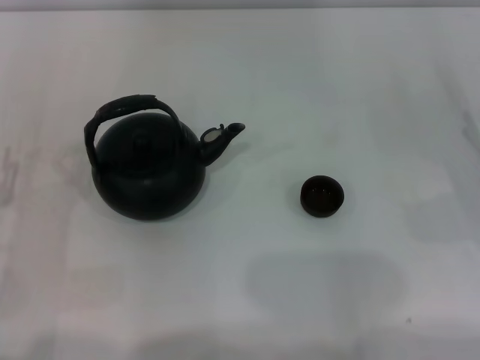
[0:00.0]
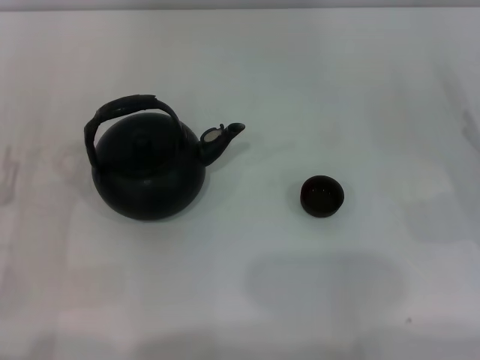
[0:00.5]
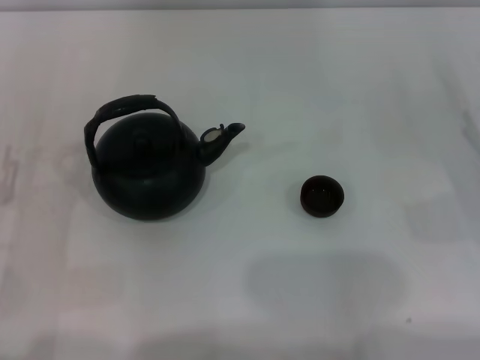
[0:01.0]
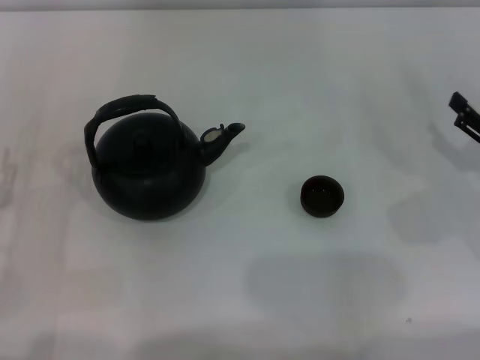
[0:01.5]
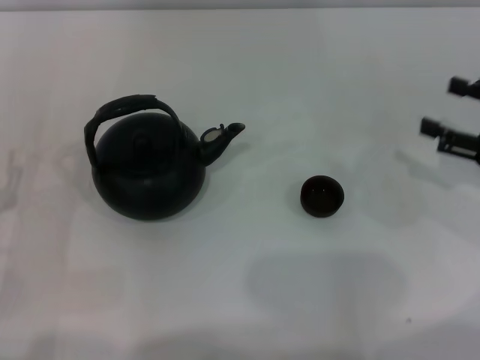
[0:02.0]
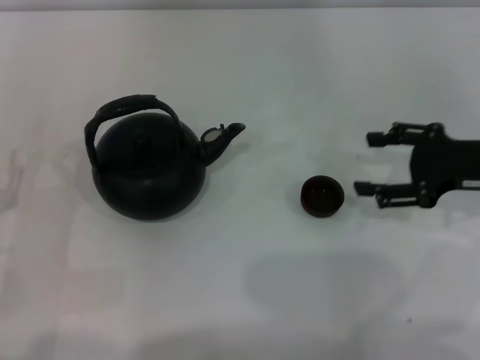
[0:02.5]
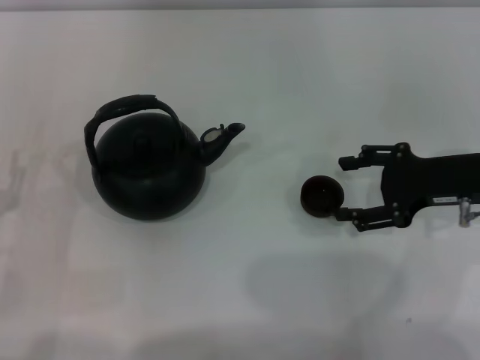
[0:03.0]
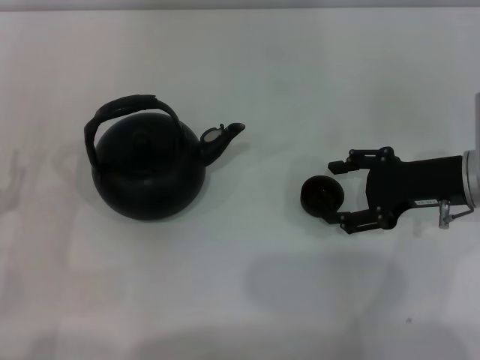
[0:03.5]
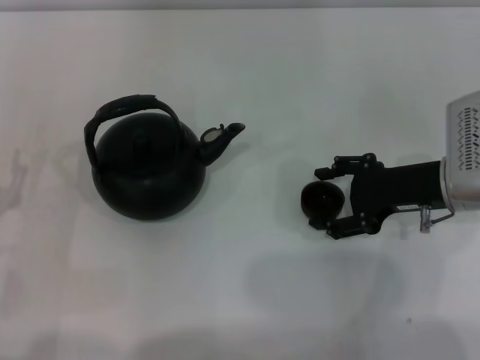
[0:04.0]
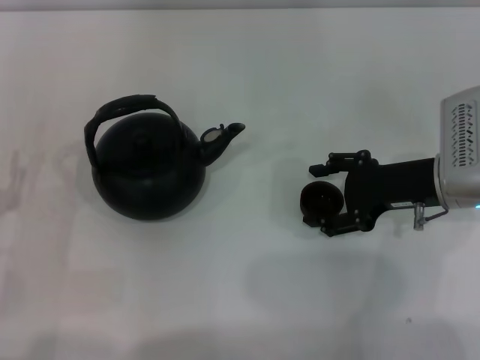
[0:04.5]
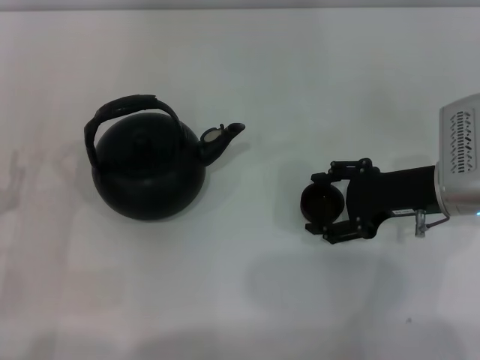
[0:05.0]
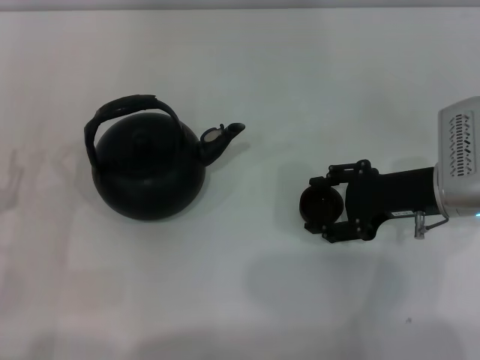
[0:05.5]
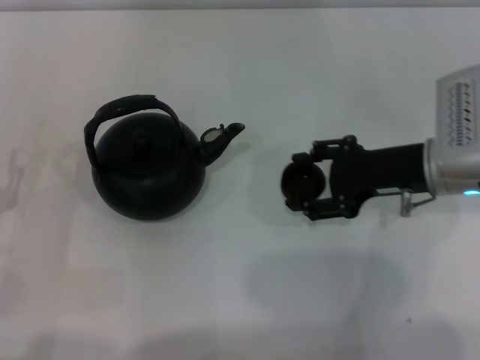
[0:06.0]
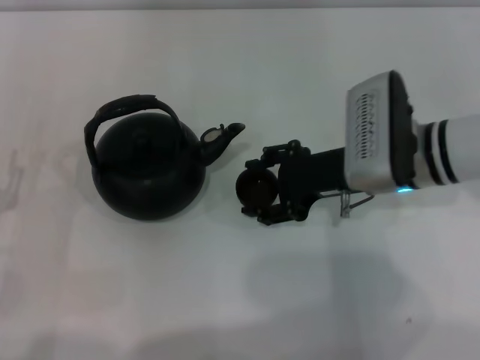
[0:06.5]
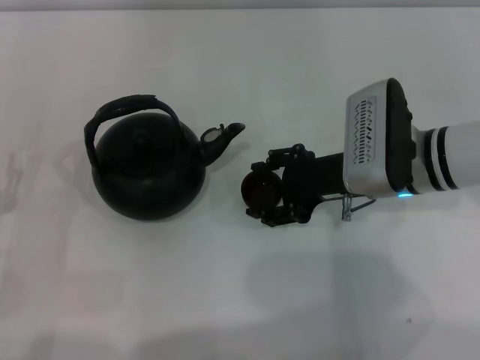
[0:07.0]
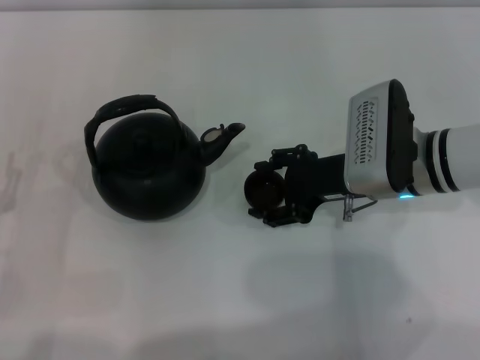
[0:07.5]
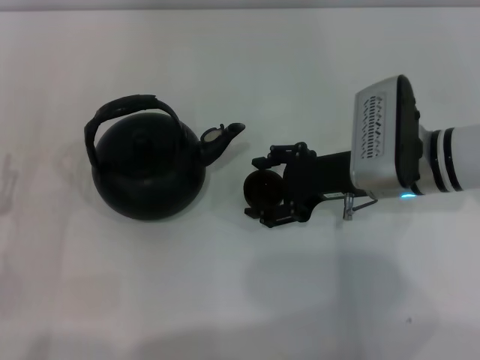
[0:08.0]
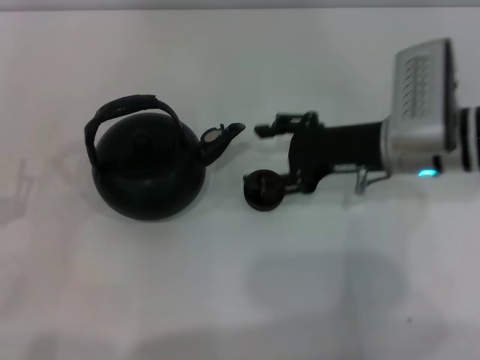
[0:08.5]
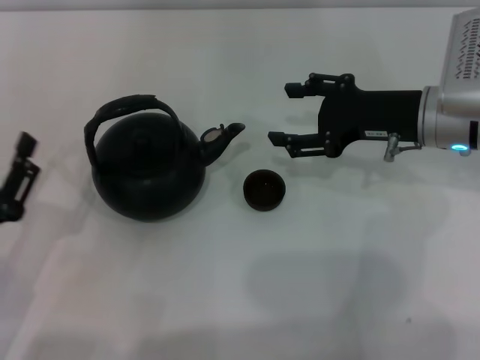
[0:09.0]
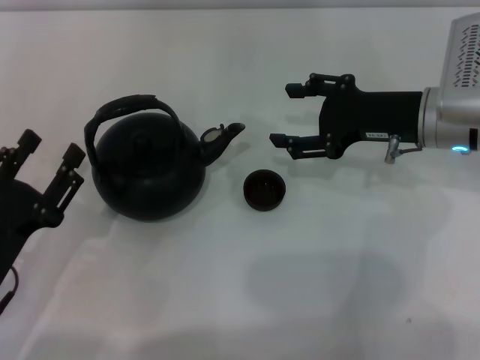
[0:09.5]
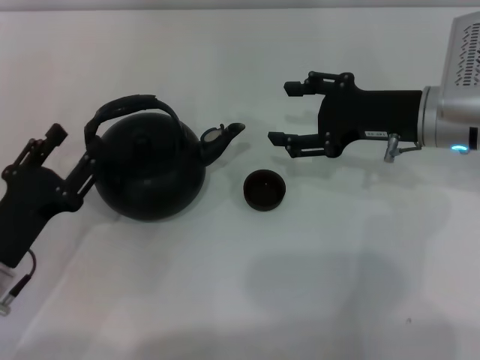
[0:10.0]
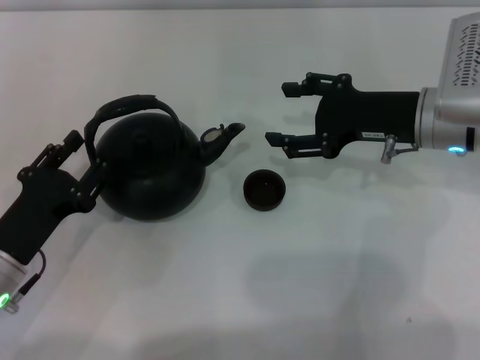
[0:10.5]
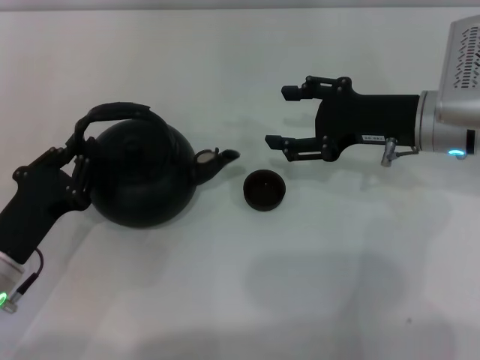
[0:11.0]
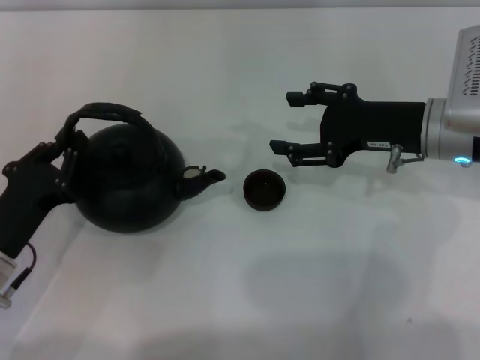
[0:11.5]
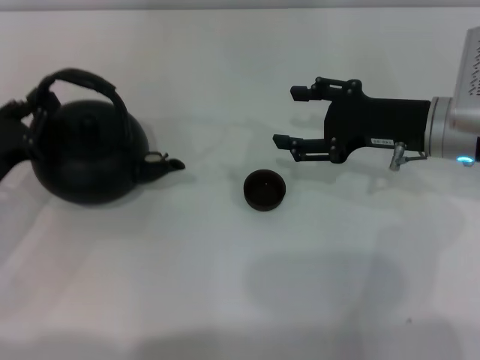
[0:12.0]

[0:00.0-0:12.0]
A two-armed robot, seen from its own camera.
Task of the whole recording: Grasp the handle of the teapot with one hand and pour tea into the teacup.
Step, 0:00.0 to 0:05.5: Pick up the teacup with the right gripper.
Step, 0:06.0 to 0:08.5: Place the teacup in the center of view with the right gripper.
0:00.0 to 0:02.0: The right gripper goes approximately 5 cm upward.
0:02.0 to 0:04.0: The right gripper goes some 10 cm to the left.
0:04.0 to 0:06.0: The grippers move only a little.
0:06.0 to 0:08.0: The right gripper heads to the left, covering roughly 5 cm.
0:08.0 to 0:10.0: The left gripper heads to the right, covering some 5 cm. Meanwhile the right gripper changes place by some 5 cm.
0:10.0 to 0:12.0: The left gripper shifts some 5 cm forward, and closes its fingers.

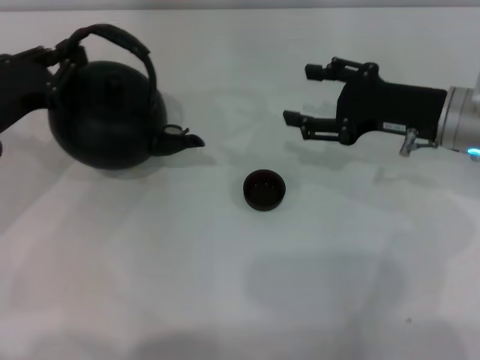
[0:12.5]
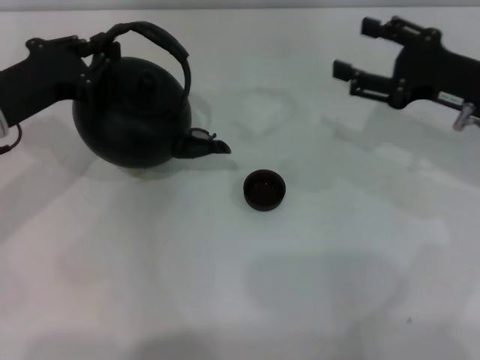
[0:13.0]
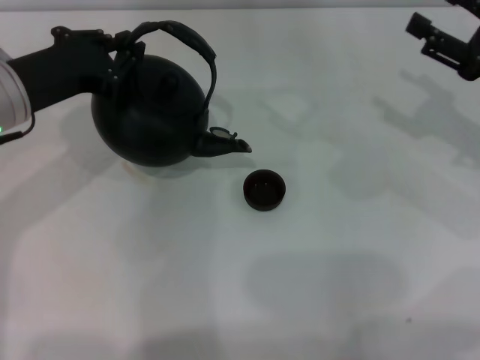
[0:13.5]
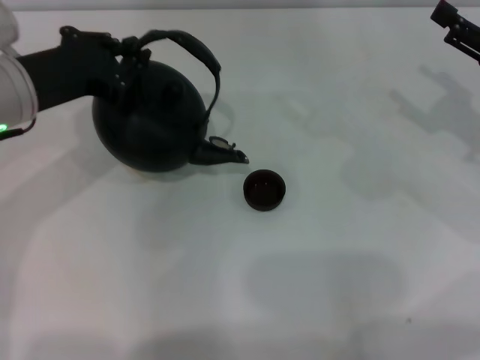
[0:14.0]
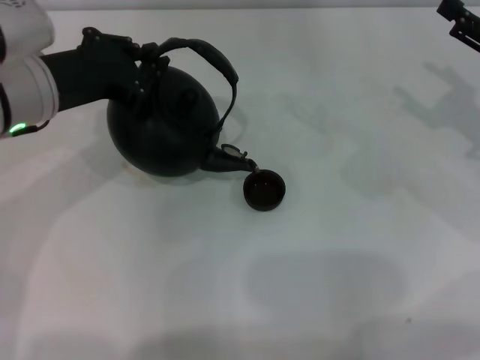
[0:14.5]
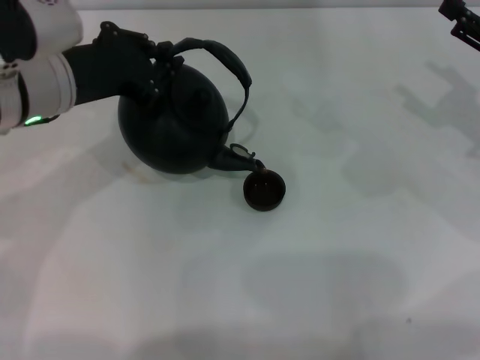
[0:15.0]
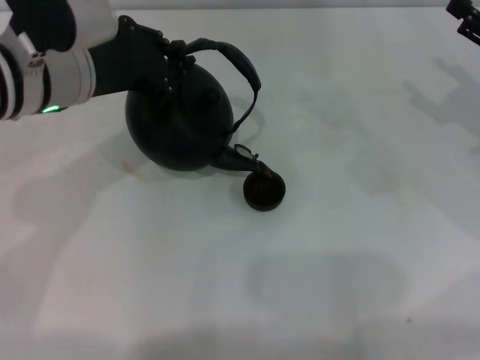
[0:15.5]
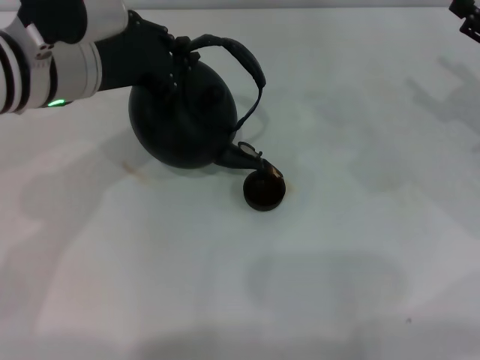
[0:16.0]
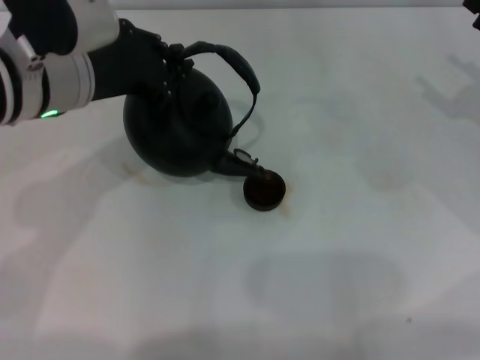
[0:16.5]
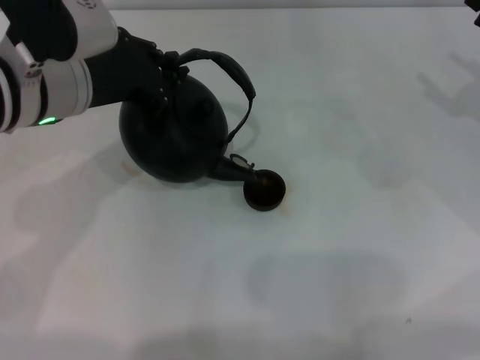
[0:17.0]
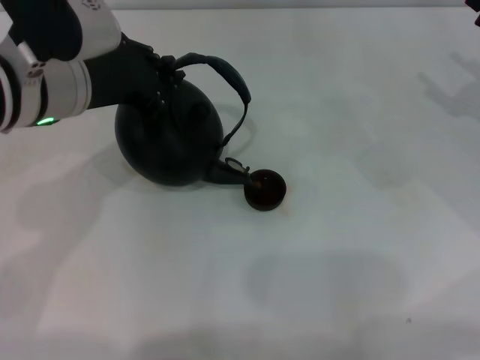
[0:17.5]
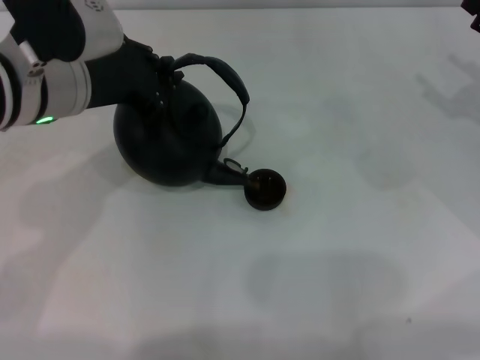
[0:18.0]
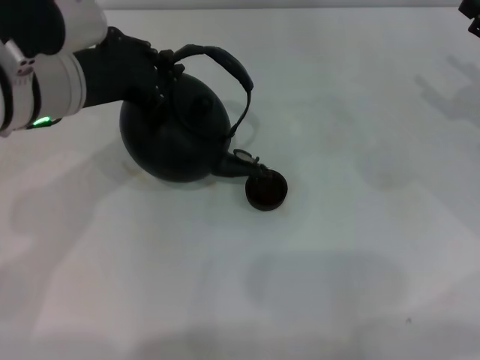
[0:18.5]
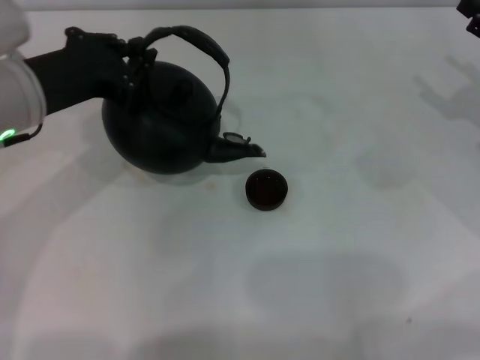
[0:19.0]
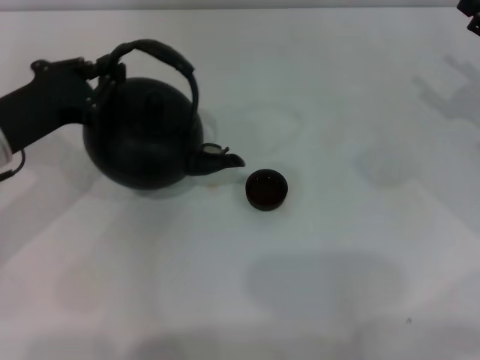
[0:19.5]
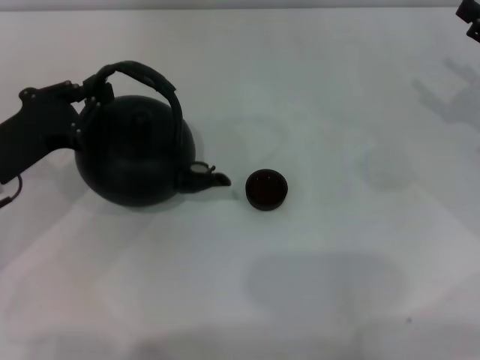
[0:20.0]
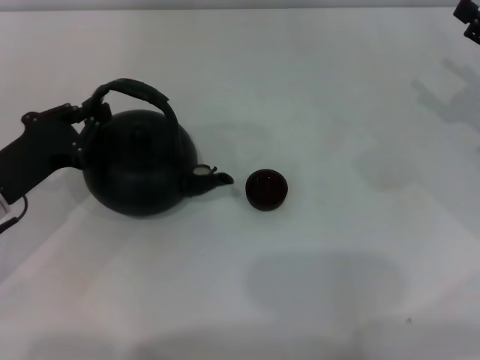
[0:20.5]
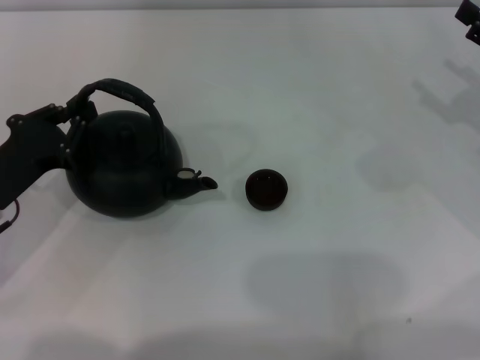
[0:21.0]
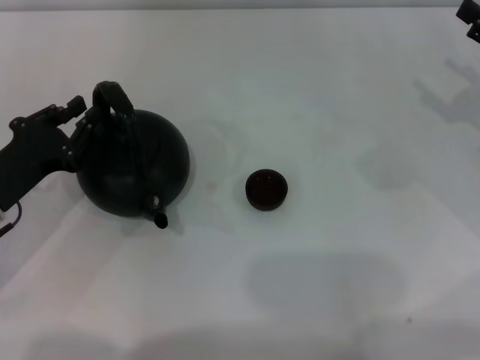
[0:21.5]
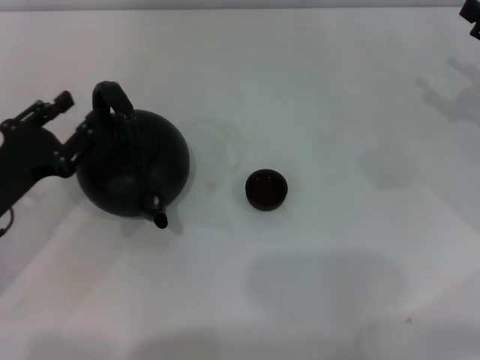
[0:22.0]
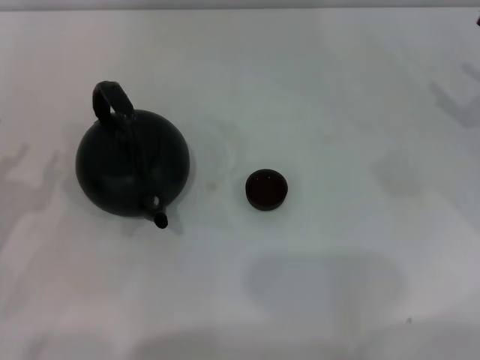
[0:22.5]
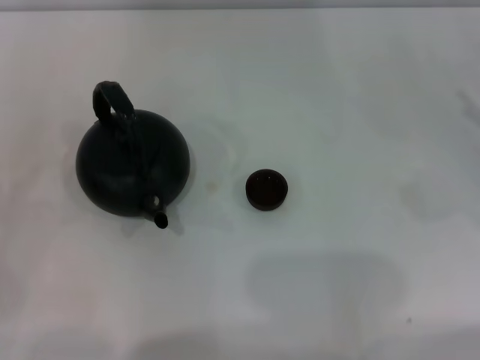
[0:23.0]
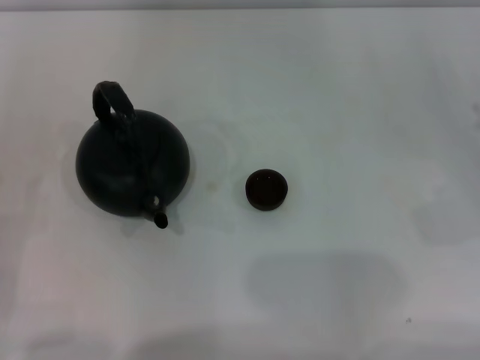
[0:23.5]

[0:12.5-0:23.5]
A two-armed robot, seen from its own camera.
Task of the whole recording: Grasp the handle of the teapot with one hand and pour tea into the teacup.
Step, 0:12.5 to 0:19.0: Pour tea into the teacup with the left gripper.
Step, 0:19.5 to 0:22.0: Put down the teapot with the left gripper.
0:12.5 to 0:14.5: The left gripper travels to the right and upward by roughly 10 cm. Meanwhile the right gripper travels to the right by approximately 10 cm.
0:14.5 to 0:18.0: The grippers move only a little.
0:18.0 to 0:20.0: The left gripper heads to the left, downward and backward, covering approximately 15 cm.
0:20.0 to 0:21.5: The grippers stay close to where they were, moving slightly.
0:21.5 to 0:23.5: The left gripper heads backward and to the left, covering roughly 15 cm, and opens up.

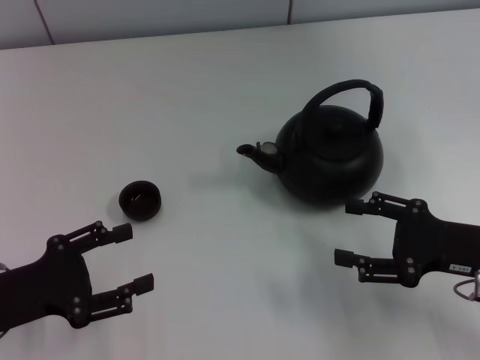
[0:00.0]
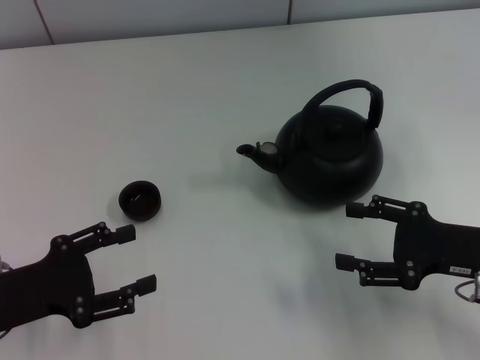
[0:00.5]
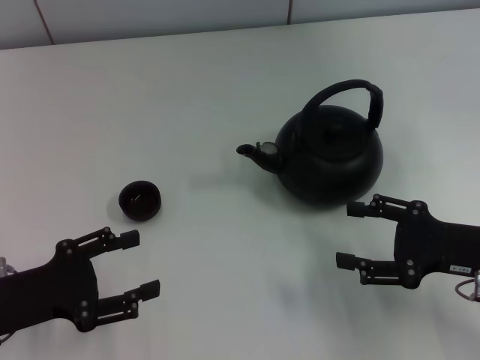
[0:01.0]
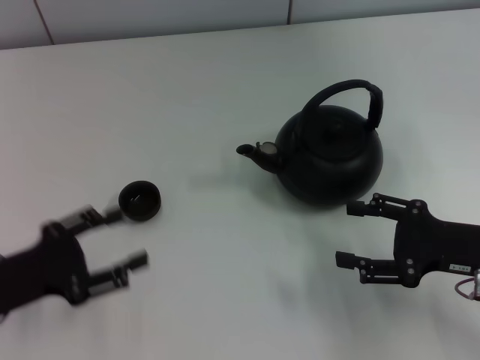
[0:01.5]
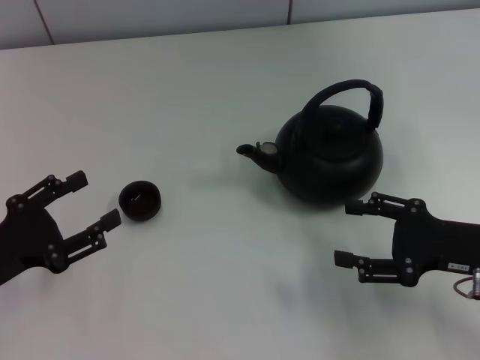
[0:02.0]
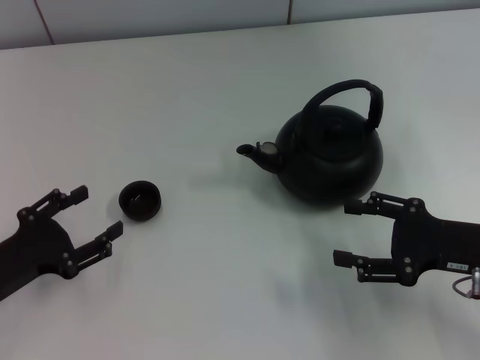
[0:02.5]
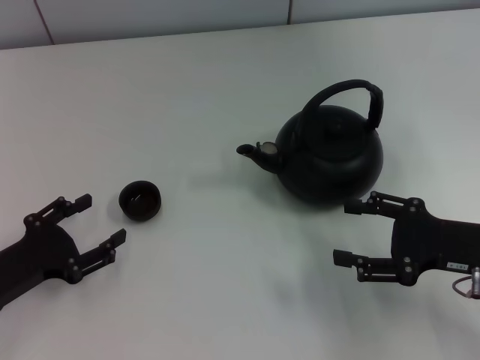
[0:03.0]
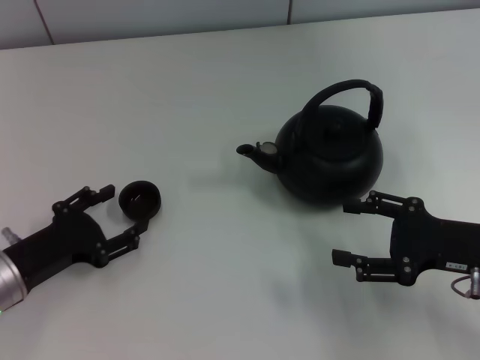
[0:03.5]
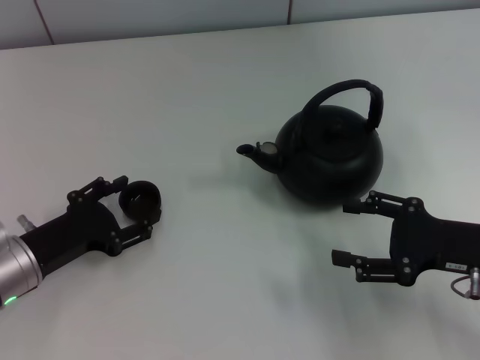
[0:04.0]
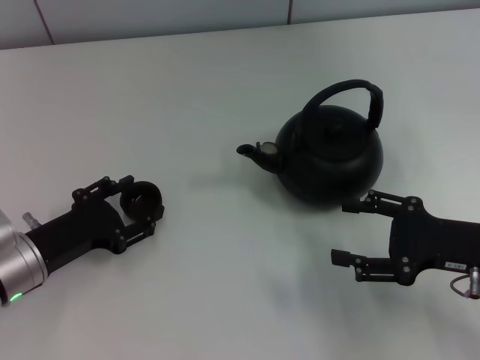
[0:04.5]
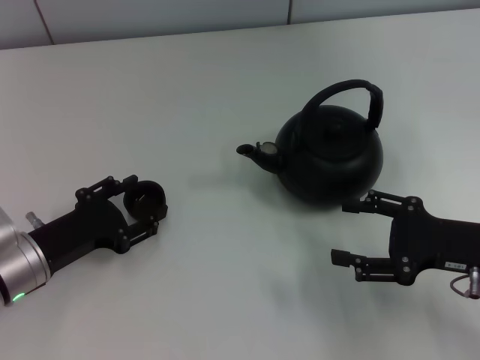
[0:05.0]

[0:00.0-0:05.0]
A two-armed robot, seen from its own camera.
Task of the whole recording: Grasp the handle of the teapot with one hand and pour tea into the teacup.
0:02.5 to 0:05.0: The left gripper ends up some 5 cm from where it was.
